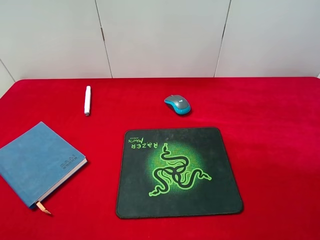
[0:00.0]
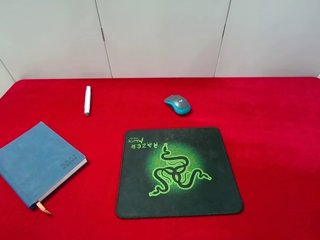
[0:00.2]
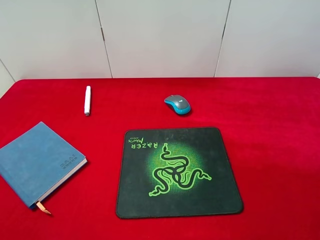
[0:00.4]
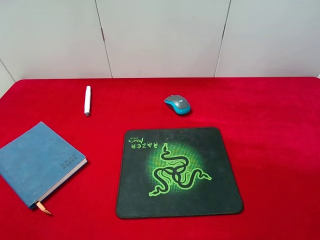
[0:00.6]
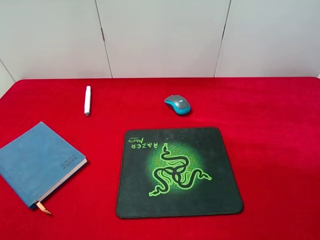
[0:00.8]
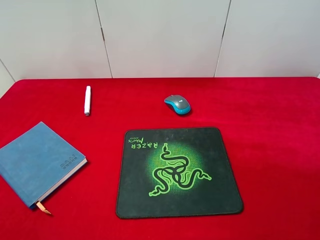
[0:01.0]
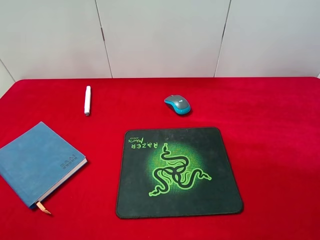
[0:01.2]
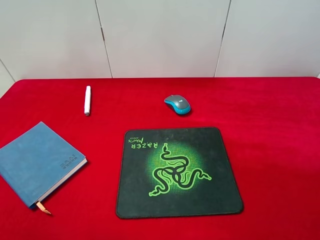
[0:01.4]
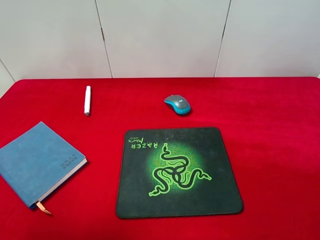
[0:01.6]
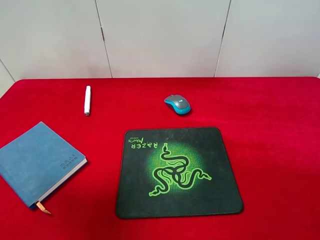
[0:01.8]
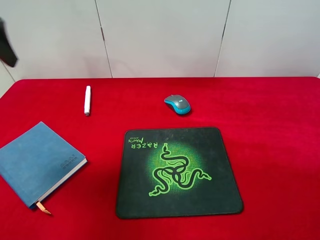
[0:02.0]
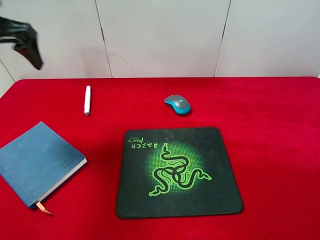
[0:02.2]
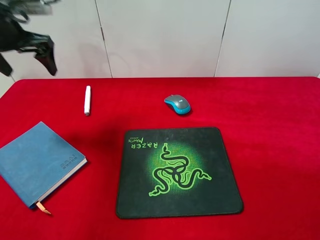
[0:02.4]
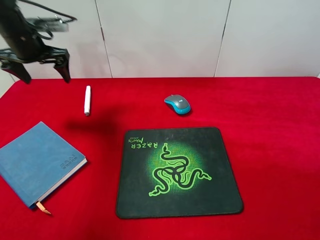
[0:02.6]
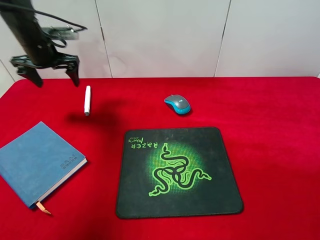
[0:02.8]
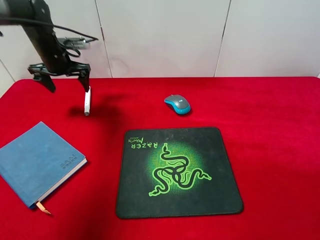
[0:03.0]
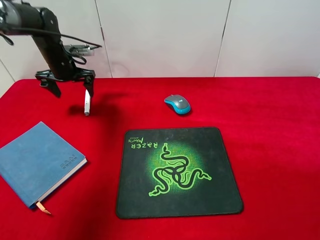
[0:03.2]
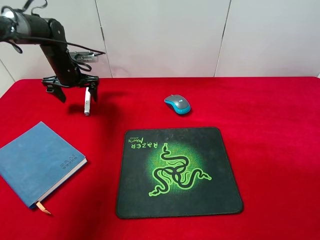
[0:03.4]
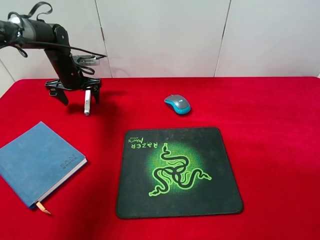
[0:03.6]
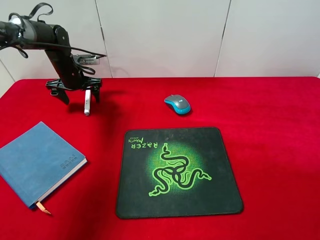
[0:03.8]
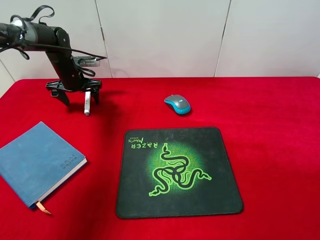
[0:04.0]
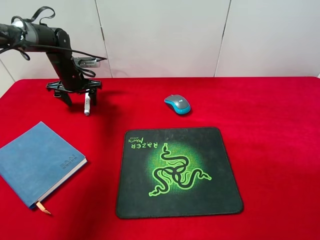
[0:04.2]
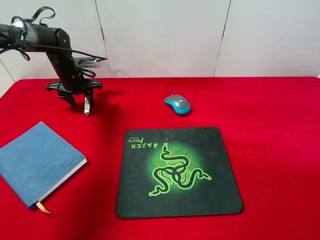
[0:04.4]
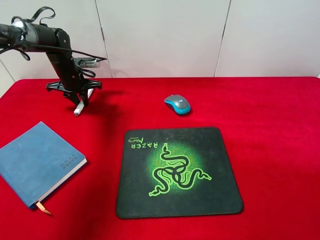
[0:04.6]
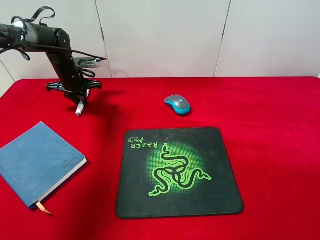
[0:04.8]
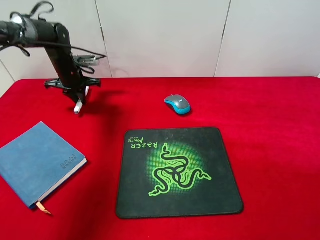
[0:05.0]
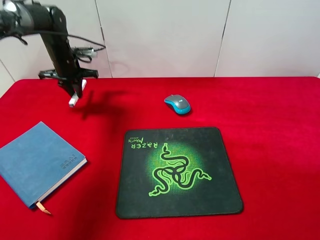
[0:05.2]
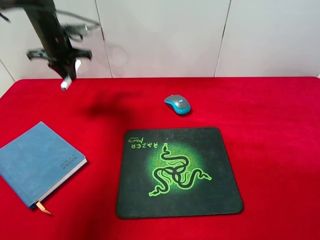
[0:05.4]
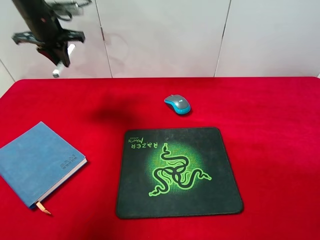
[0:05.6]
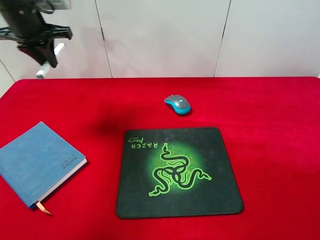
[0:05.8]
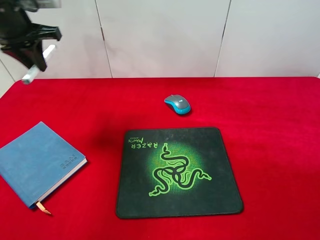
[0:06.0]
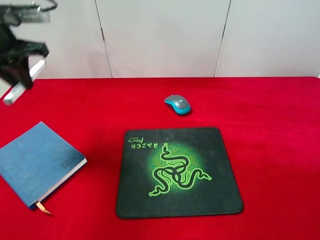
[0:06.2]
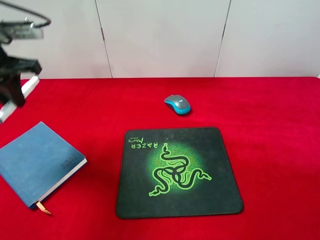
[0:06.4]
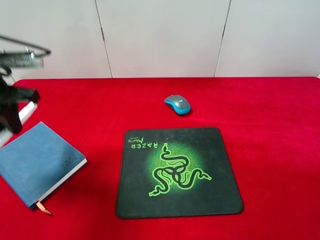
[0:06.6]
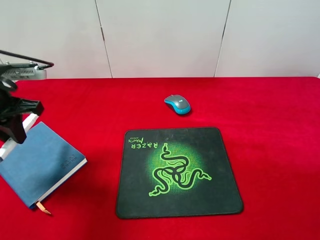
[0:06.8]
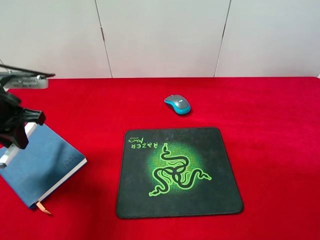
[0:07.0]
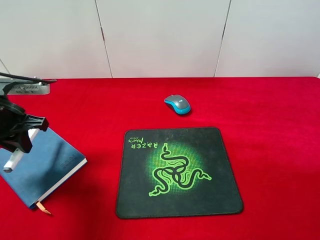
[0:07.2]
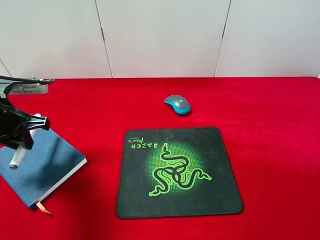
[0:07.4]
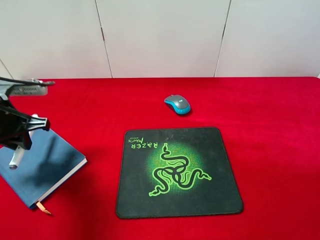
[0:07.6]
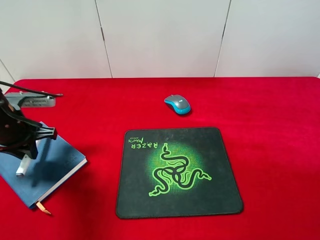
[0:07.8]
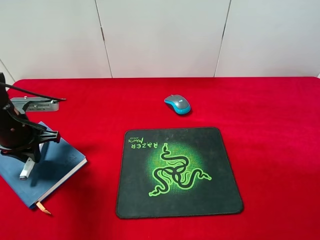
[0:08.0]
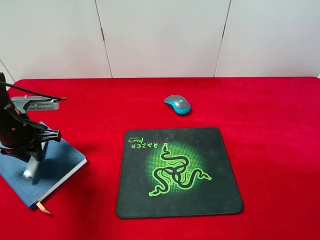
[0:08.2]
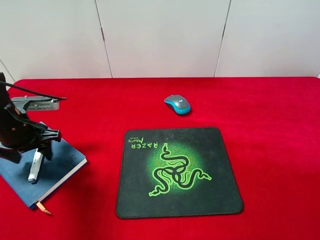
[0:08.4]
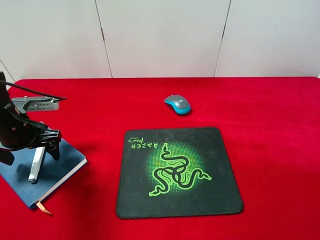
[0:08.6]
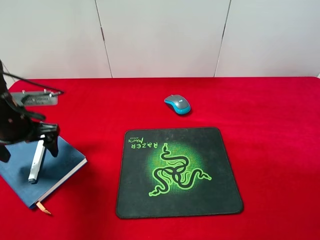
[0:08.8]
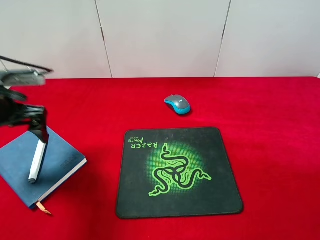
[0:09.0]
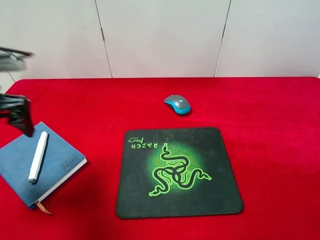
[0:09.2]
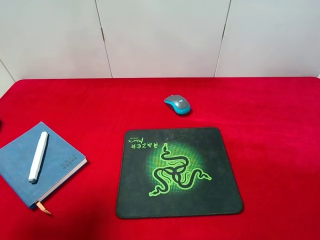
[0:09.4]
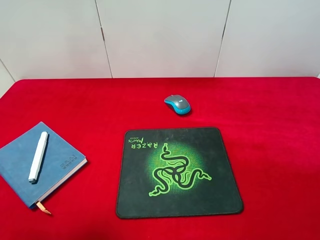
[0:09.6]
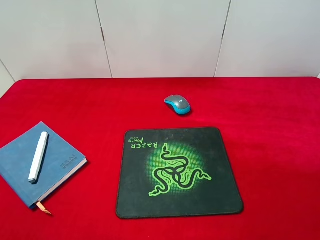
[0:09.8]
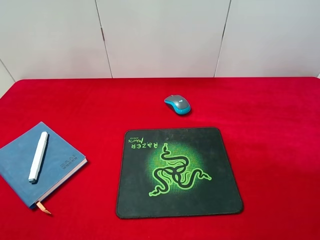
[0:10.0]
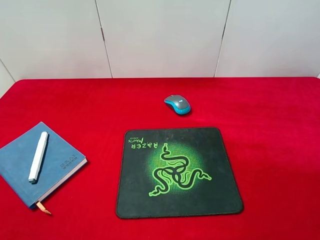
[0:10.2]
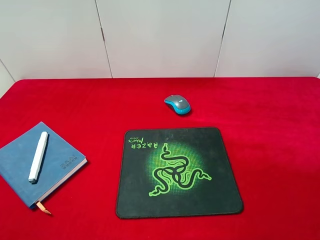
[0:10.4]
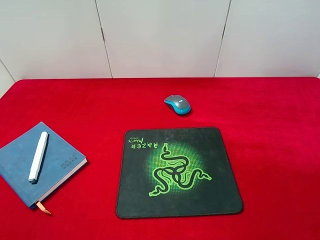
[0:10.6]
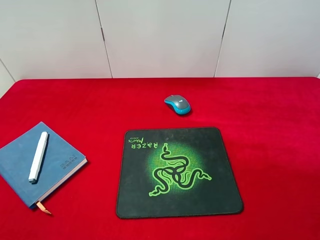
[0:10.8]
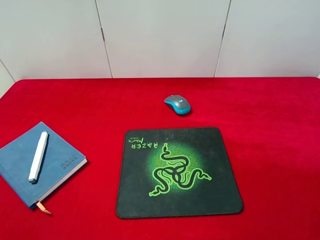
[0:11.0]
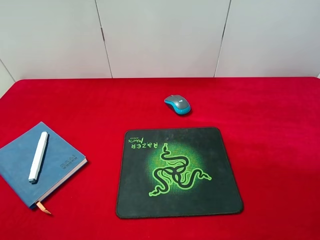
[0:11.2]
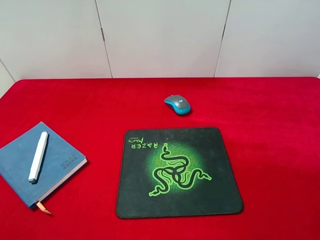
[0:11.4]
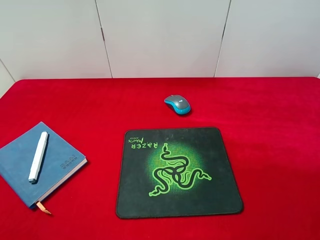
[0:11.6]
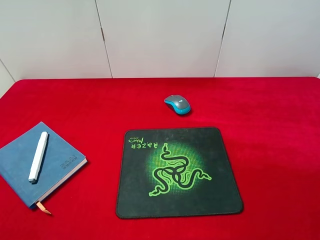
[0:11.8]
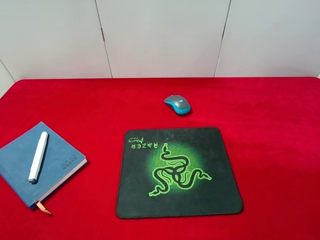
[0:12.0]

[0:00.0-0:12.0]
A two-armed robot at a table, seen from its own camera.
Step, 0:00.0 to 0:05.0: Pick up the marker pen with left gripper.
Step, 0:05.2 to 0:08.4: Place the marker pen on the notebook with left gripper.
0:01.6 to 0:03.0: The left gripper shifts about 40 cm forward and downward.
0:03.0 to 0:04.4: The left gripper goes roughly 10 cm downward, and closes its fingers.
0:04.4 to 0:06.0: The left gripper is displaced upward and backward by about 20 cm, and closes its fingers.
0:06.0 to 0:07.6: The left gripper goes some 20 cm backward and downward.
0:07.6 to 0:09.0: The left gripper opens its fingers.
0:09.0 to 0:10.4: The left gripper travels backward and upward by approximately 25 cm.

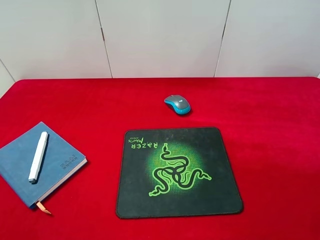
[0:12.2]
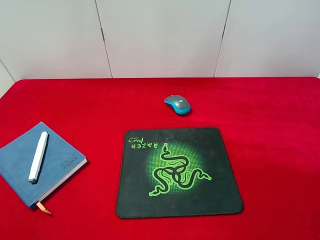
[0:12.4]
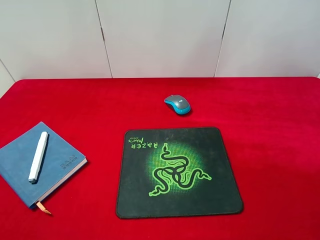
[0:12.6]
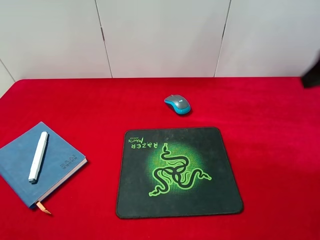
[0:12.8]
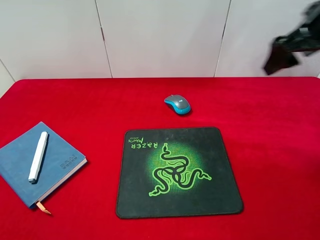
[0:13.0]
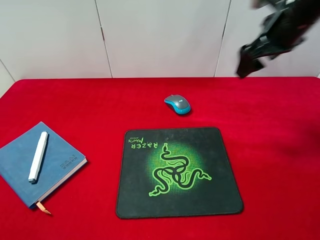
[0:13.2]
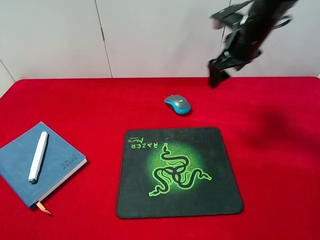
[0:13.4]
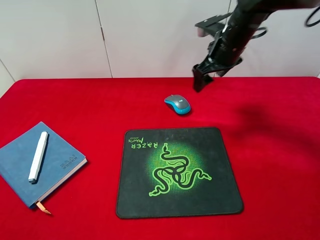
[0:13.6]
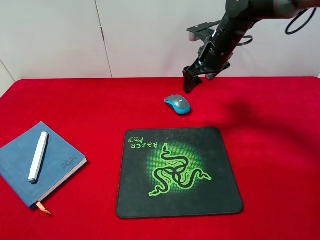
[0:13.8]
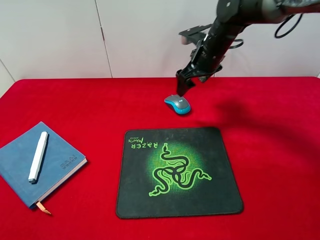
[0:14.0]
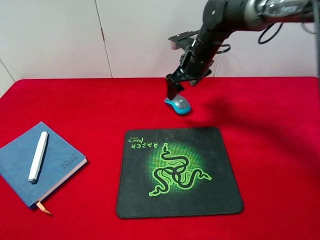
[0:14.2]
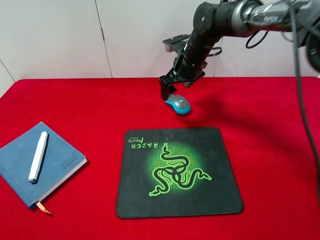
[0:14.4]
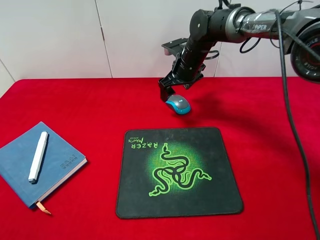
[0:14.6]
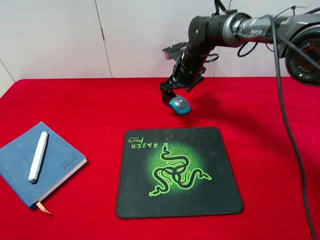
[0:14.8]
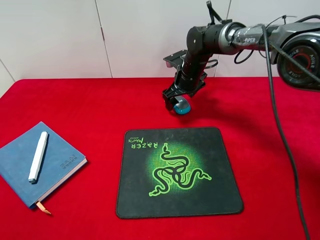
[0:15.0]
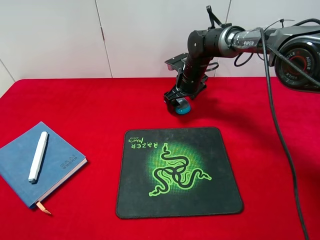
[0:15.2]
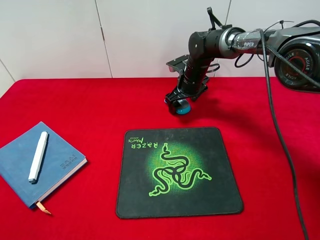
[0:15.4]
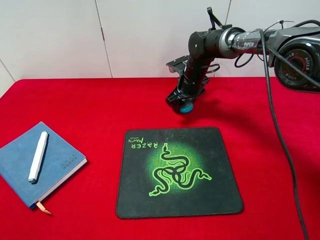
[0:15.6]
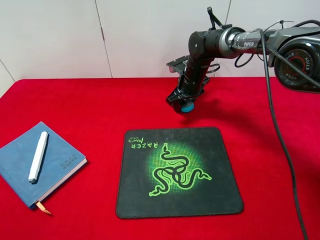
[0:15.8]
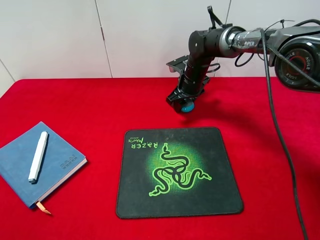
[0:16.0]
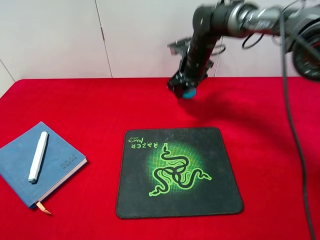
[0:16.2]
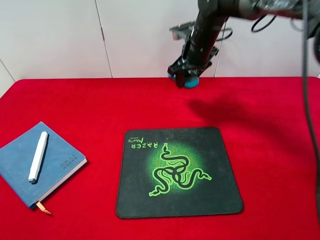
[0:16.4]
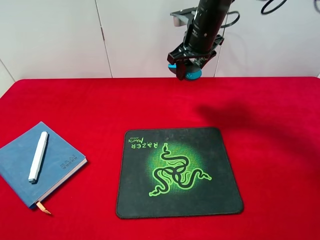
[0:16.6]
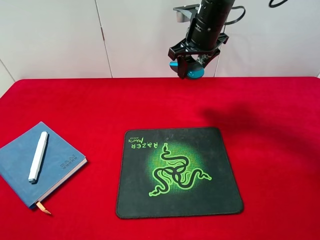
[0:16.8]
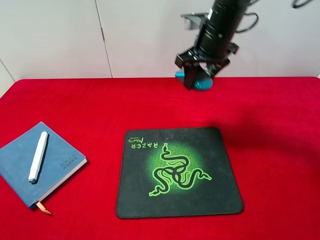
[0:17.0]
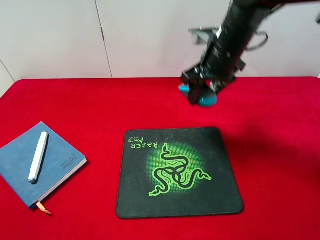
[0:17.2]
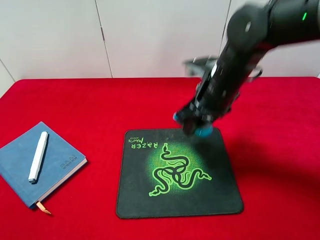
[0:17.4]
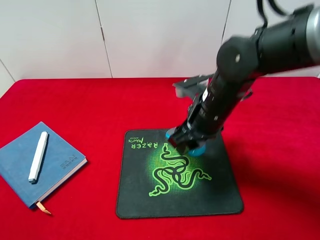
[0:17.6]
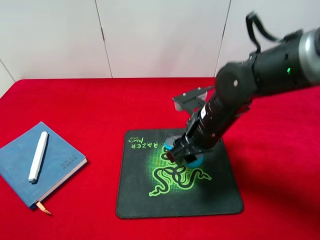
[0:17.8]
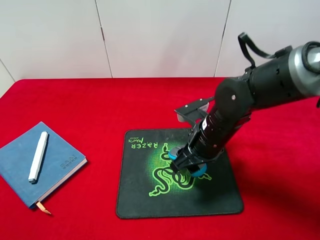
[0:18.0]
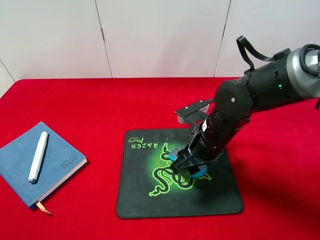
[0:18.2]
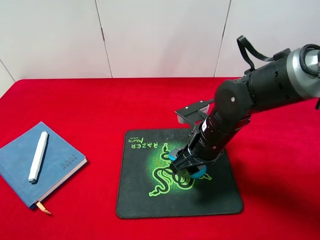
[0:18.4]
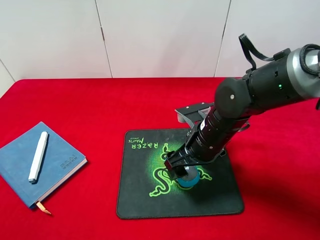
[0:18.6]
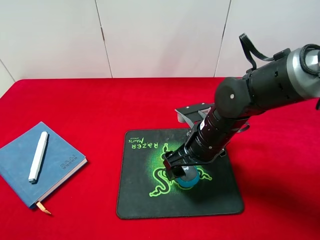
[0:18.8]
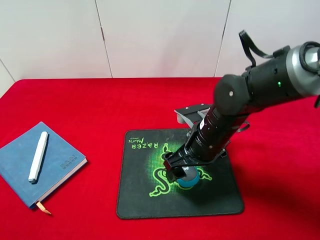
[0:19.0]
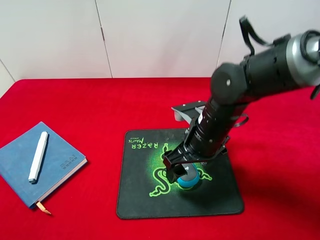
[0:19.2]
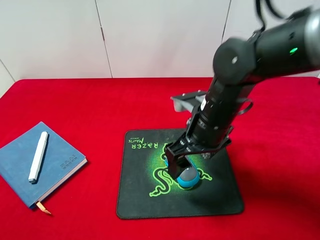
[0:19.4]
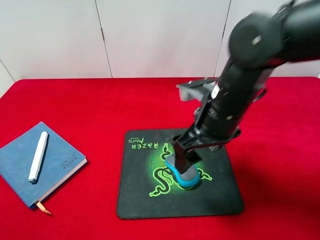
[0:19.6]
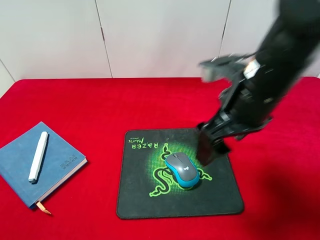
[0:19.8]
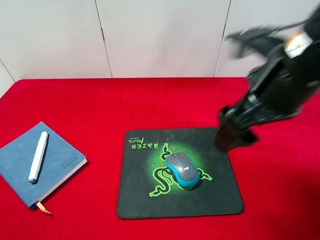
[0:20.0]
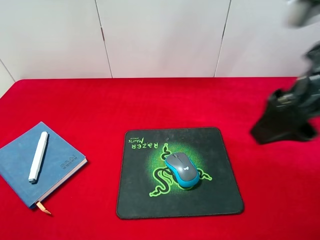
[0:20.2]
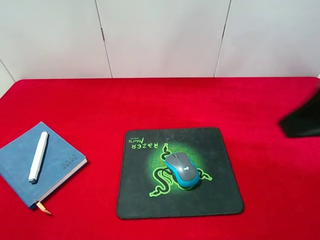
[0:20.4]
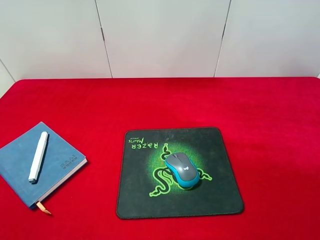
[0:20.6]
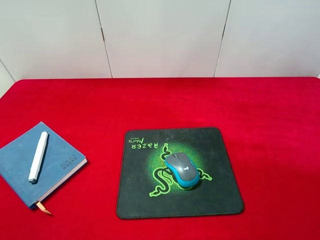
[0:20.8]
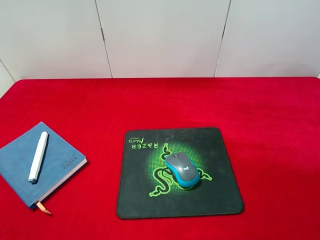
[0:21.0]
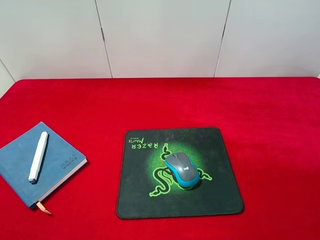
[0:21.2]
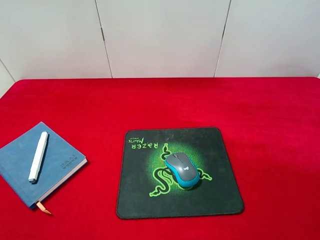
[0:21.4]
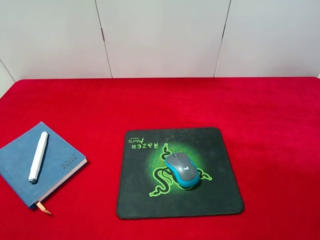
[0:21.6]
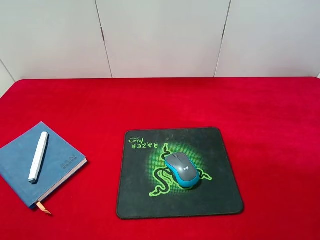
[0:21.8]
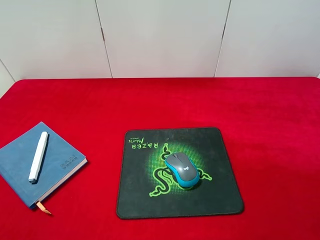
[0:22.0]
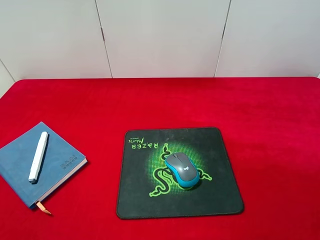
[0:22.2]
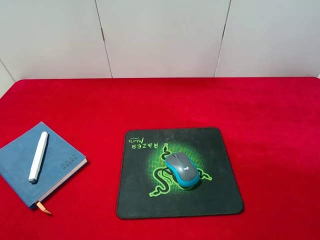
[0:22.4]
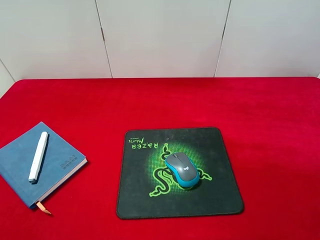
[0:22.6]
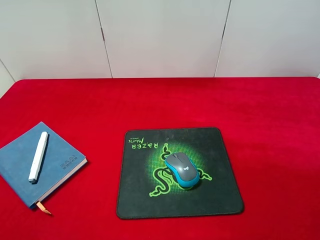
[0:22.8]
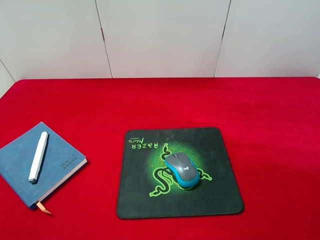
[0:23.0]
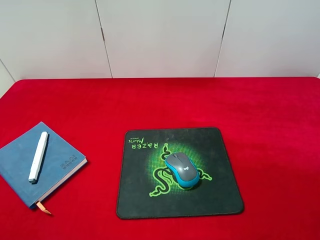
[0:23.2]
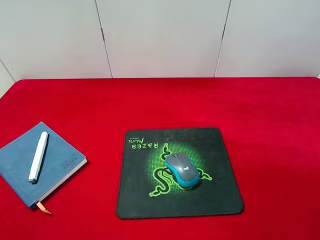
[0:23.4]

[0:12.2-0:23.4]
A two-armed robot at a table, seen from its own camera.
Step, 0:12.2 to 0:16.0: Pick up the mouse with right gripper.
Step, 0:16.2 to 0:18.8: Place the mouse on the mouse pad with right gripper.
0:12.2 to 0:13.8: The right gripper heads forward, covering about 40 cm.
0:13.8 to 0:15.4: The right gripper moves downward and to the left, about 10 cm.
0:15.4 to 0:17.0: The right gripper shifts approximately 15 cm upward and backward, and closes its fingers.
0:17.0 to 0:18.6: The right gripper travels backward and downward by approximately 20 cm, and opens.
0:18.6 to 0:20.2: The right gripper moves upward, roughly 20 cm, and opens up.
0:20.2 to 0:21.8: The right gripper shifts approximately 20 cm backward and to the right.
